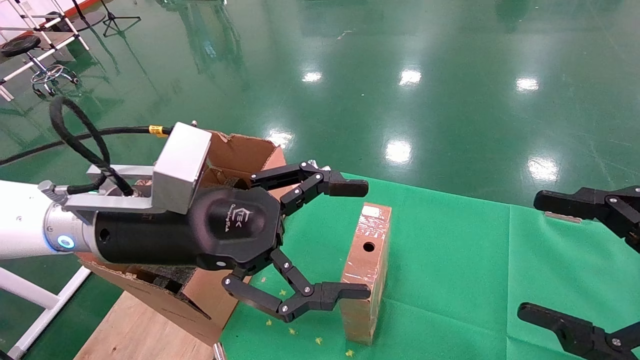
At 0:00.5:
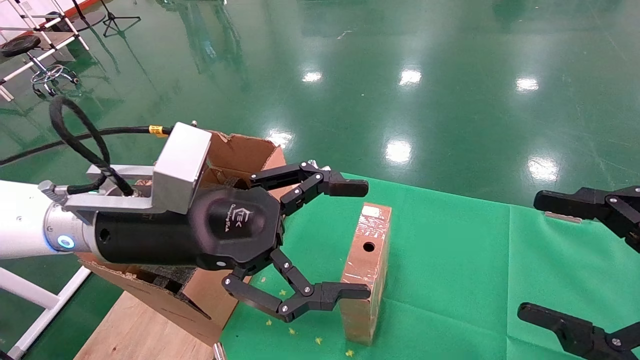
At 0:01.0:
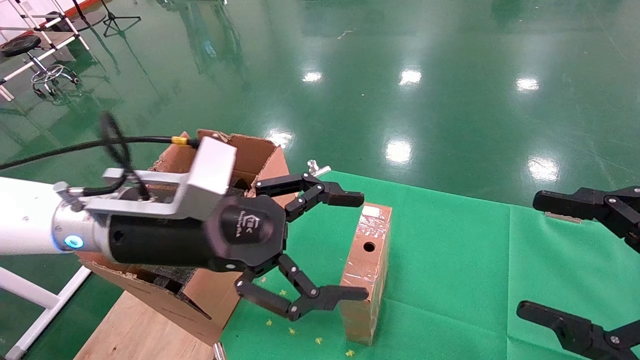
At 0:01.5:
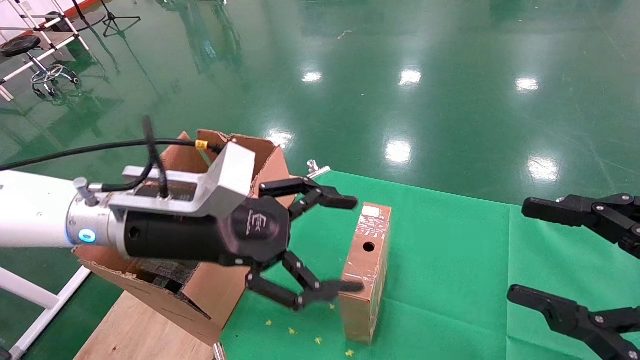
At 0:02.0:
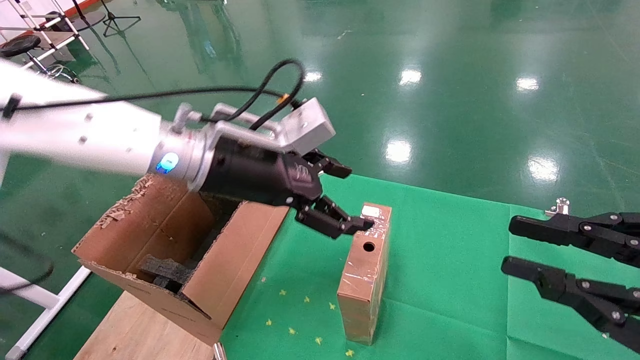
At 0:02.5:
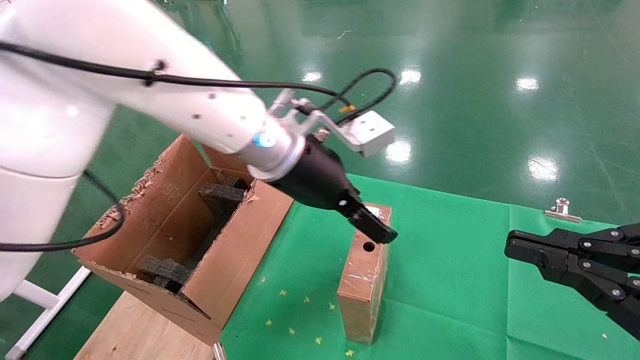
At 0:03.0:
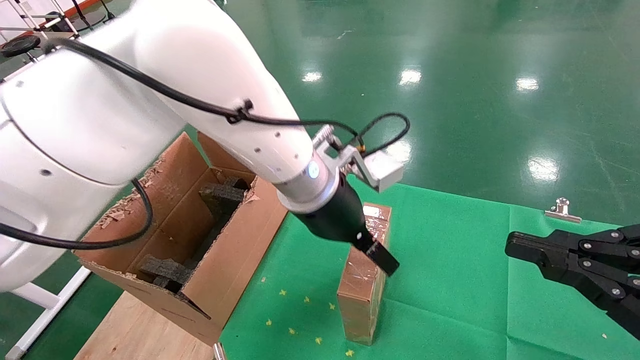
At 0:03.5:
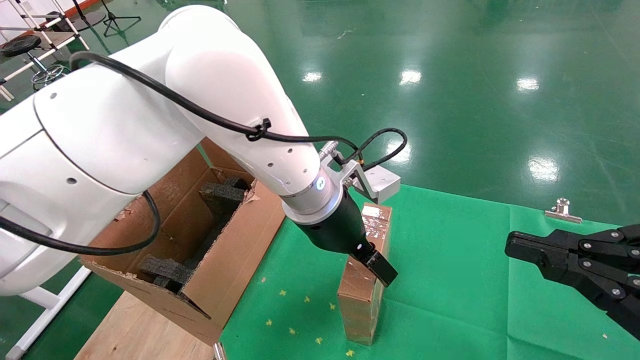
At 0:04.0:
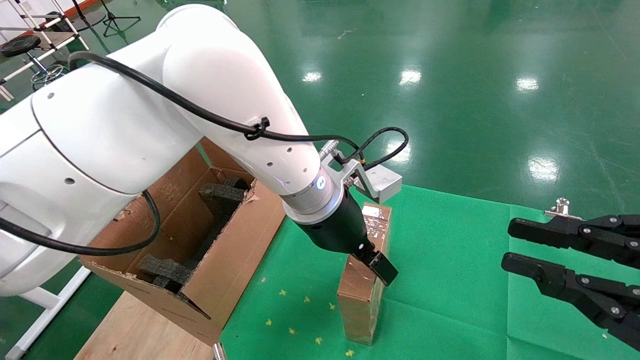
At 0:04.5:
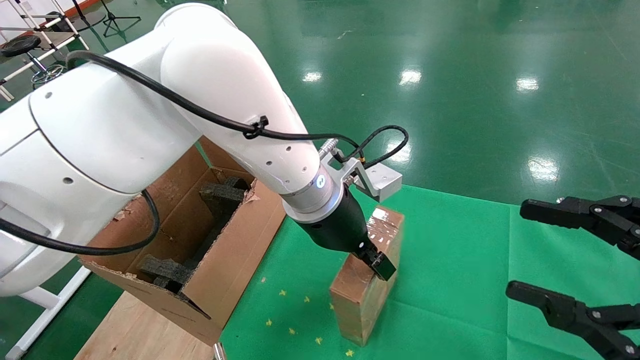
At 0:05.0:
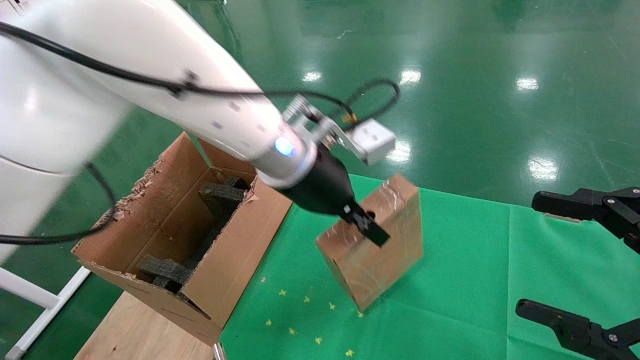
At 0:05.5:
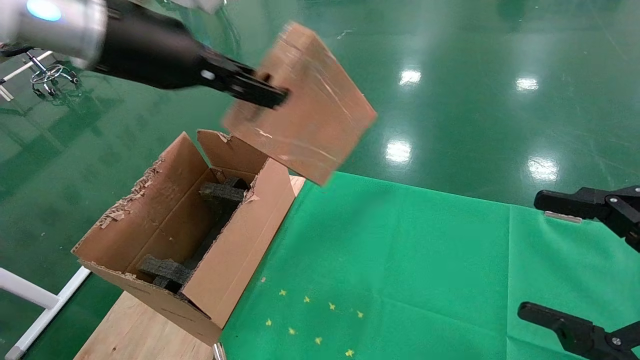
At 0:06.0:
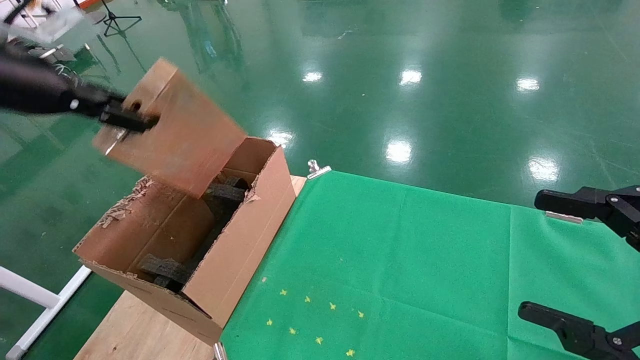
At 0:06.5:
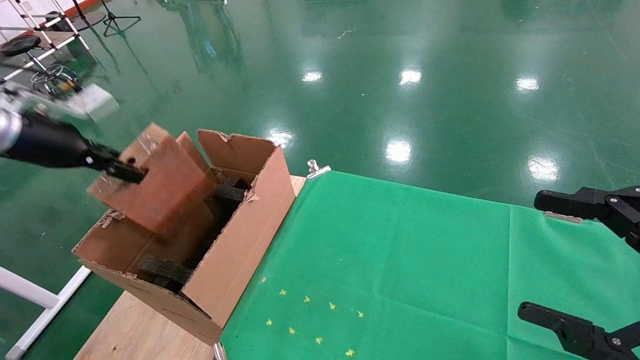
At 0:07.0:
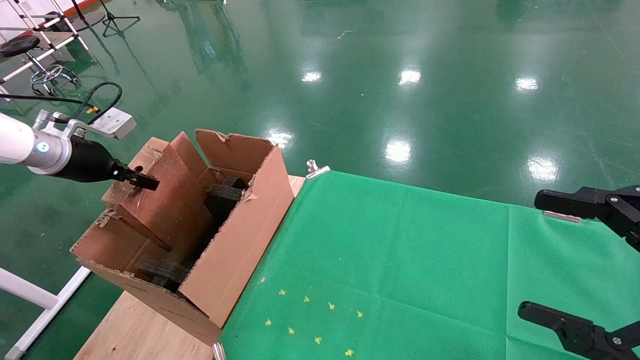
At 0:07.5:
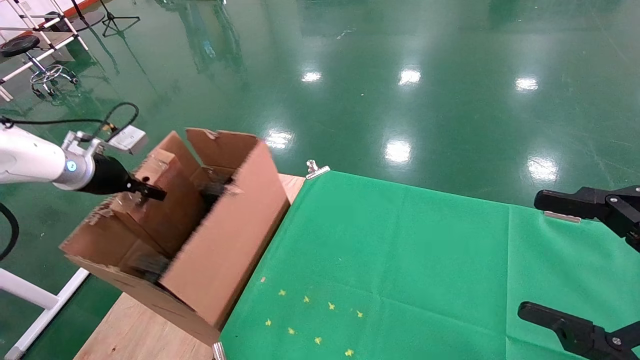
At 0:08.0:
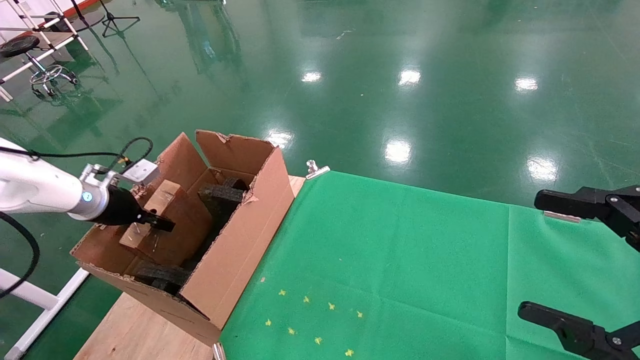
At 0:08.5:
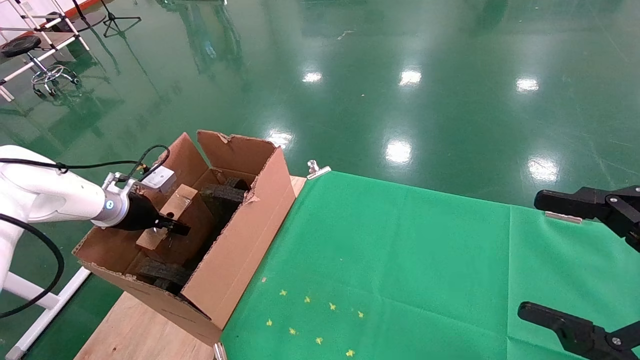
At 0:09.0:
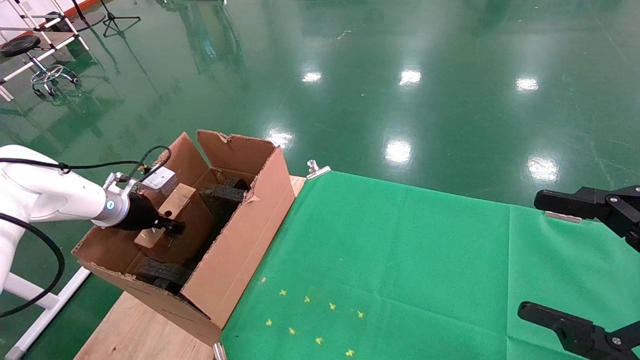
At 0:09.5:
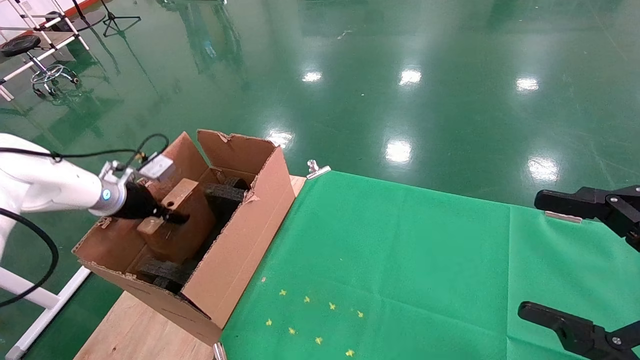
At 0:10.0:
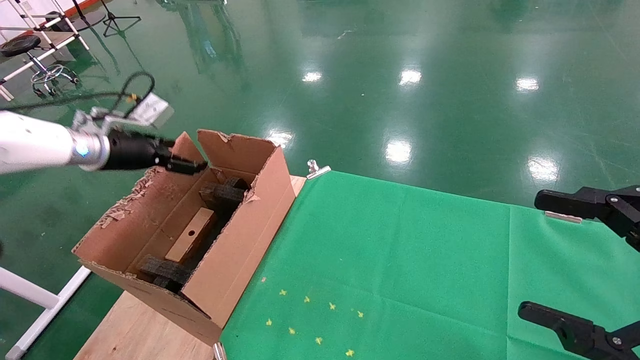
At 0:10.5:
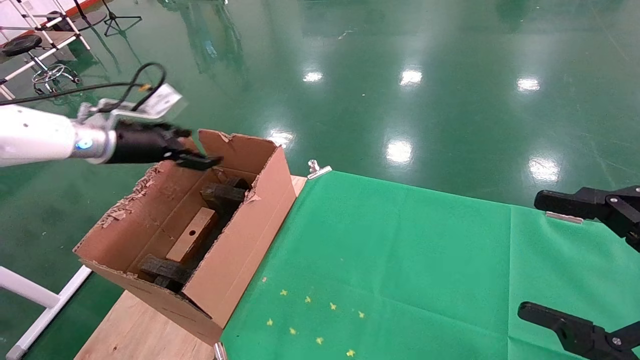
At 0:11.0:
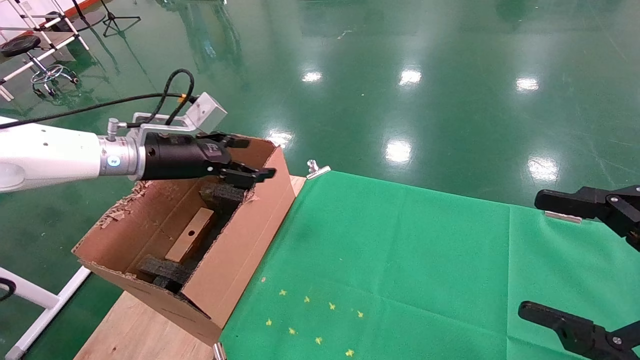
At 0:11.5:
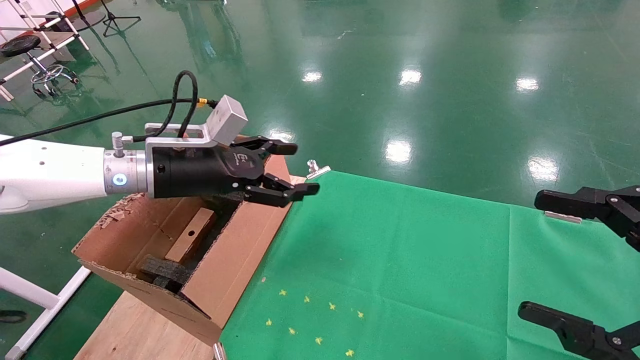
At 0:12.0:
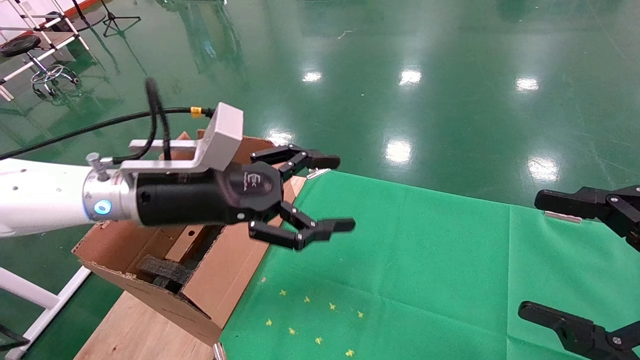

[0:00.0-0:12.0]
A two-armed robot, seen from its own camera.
Task of the whole recording: using a robotic arm to pick up a cardboard box and palace it the carton.
Step, 0:01.5 to 0:04.5: Pick up the mouse and the power cord paper box.
Step, 0:05.0 to 0:09.5: Place the mouse and the power cord paper box into the container.
0:00.0 to 0:02.0: The right gripper closes up. The left gripper shifts roughly 10 cm forward.
0:02.0 to 0:04.0: The left gripper goes approximately 10 cm to the right.
0:04.0 to 0:06.0: The left gripper travels to the left by roughly 35 cm, and closes its fingers. Meanwhile the right gripper opens.
0:06.0 to 0:08.0: The left gripper shifts some 25 cm downward and forward.
0:08.0 to 0:10.0: The left gripper heads upward, covering some 10 cm, and opens up.
0:10.0 to 0:12.0: The left gripper heads to the right and backward, covering roughly 25 cm.

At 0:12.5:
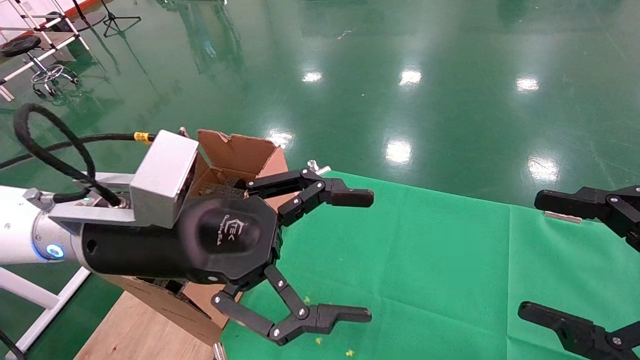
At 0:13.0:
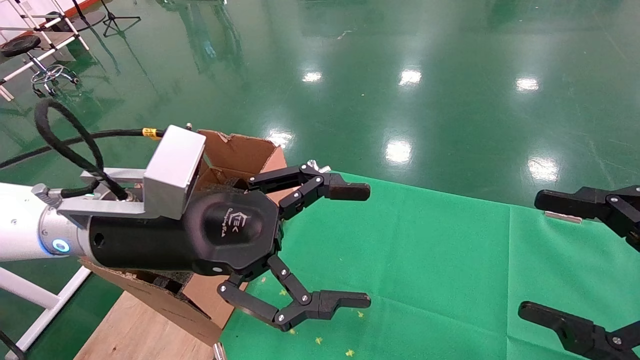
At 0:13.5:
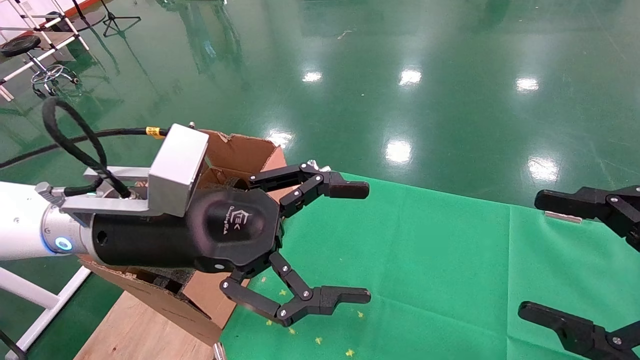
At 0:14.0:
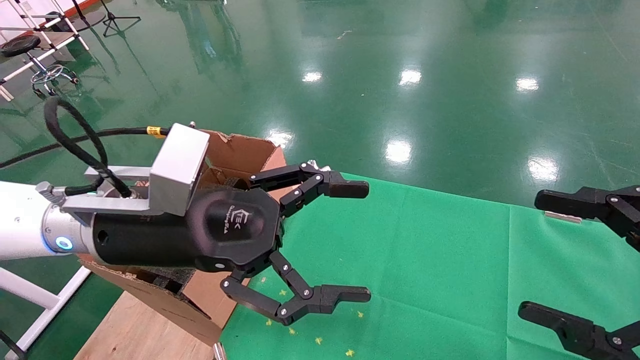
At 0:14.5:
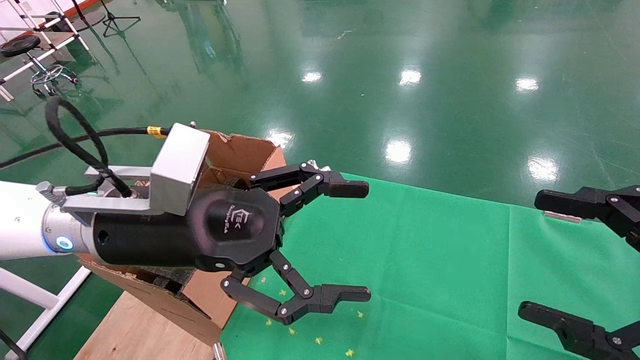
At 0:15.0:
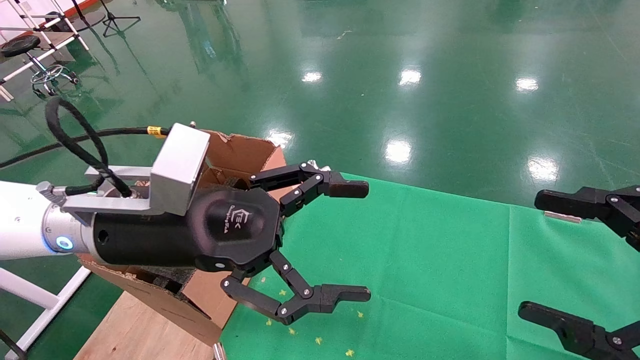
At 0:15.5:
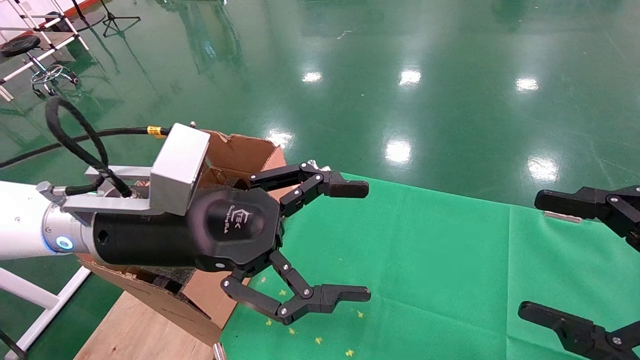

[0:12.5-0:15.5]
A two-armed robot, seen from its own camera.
Task of the whole recording: using a robotic arm to pick up a cardboard box and palace it the carton.
0:12.5 to 0:15.5: Both grippers stay put.

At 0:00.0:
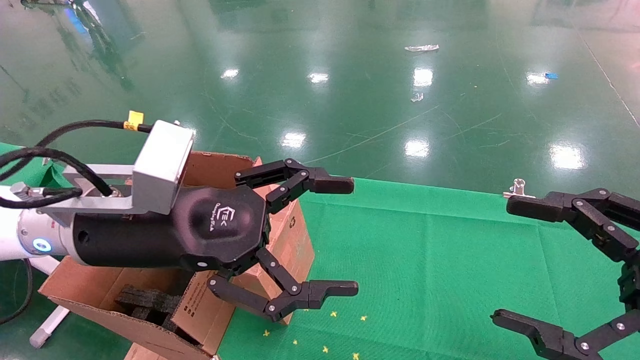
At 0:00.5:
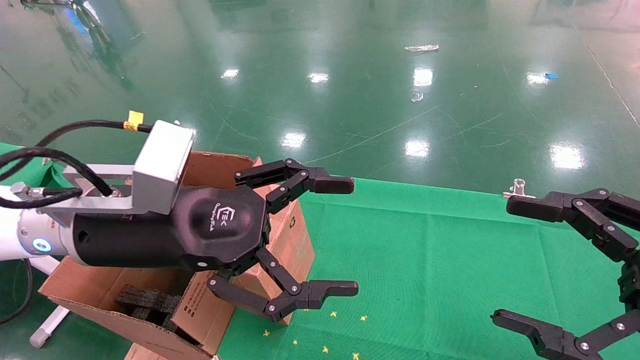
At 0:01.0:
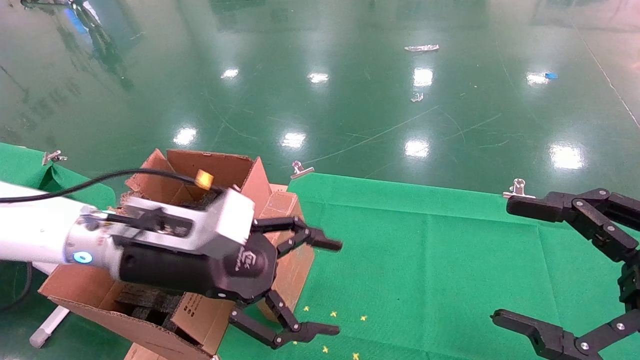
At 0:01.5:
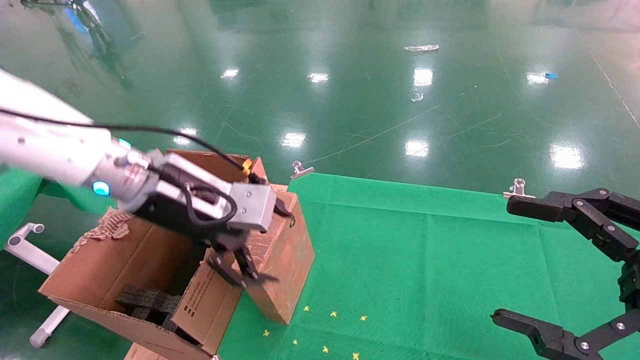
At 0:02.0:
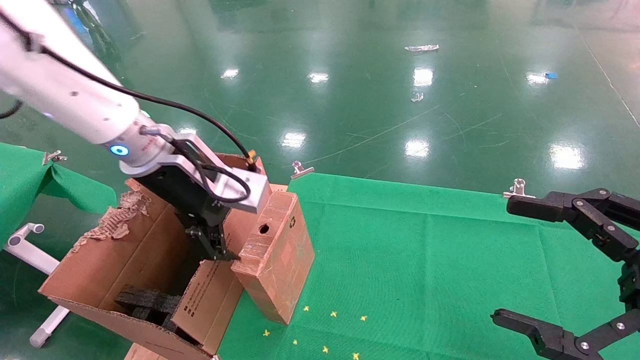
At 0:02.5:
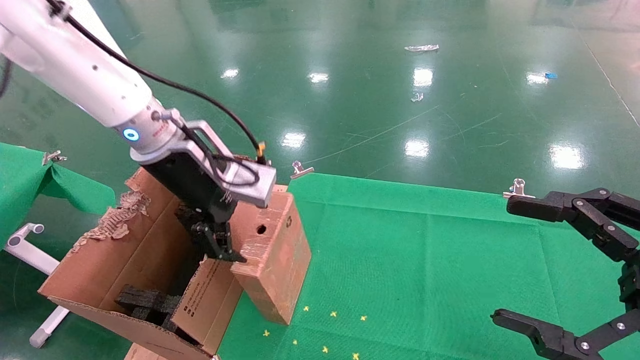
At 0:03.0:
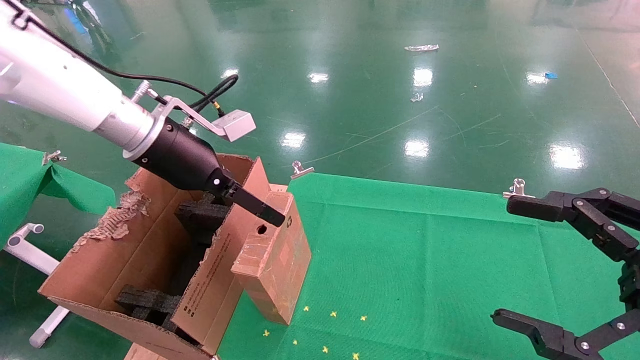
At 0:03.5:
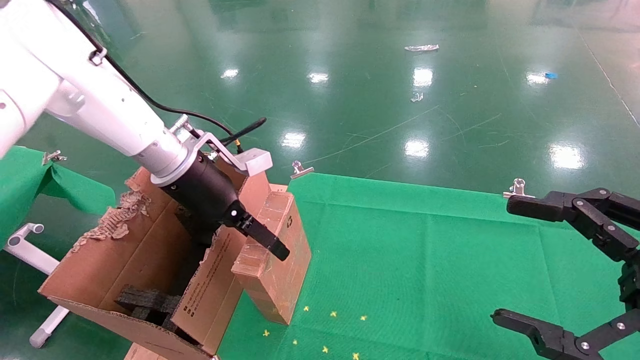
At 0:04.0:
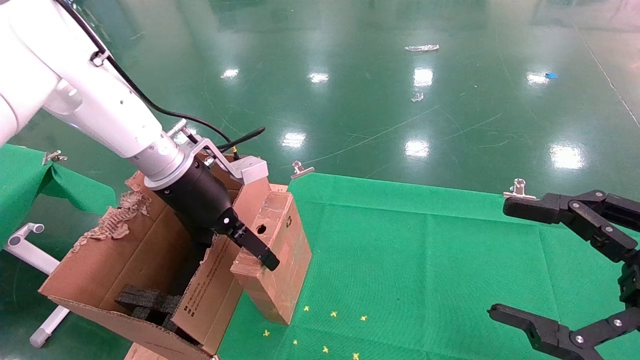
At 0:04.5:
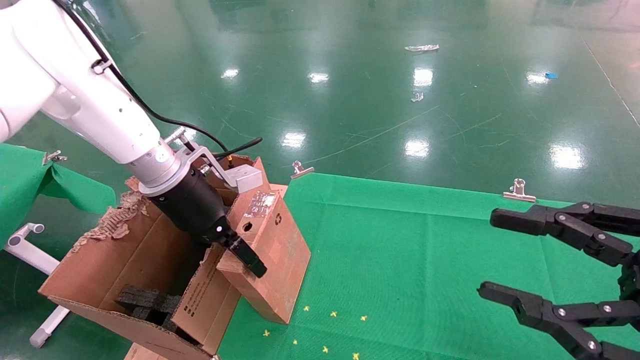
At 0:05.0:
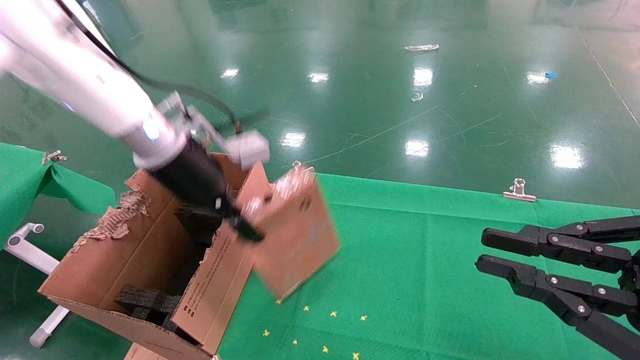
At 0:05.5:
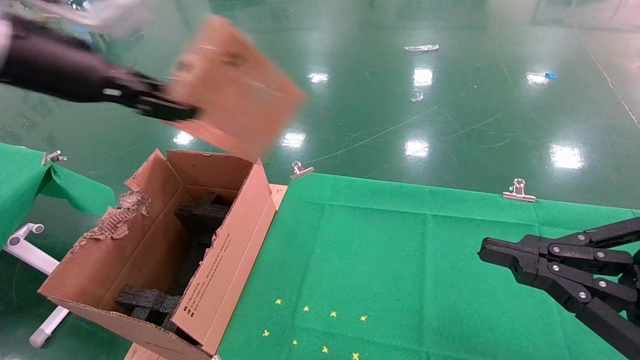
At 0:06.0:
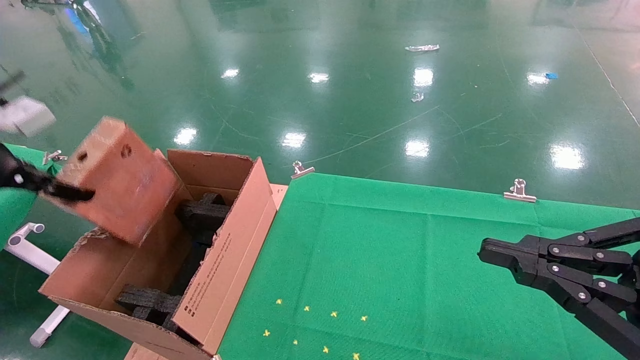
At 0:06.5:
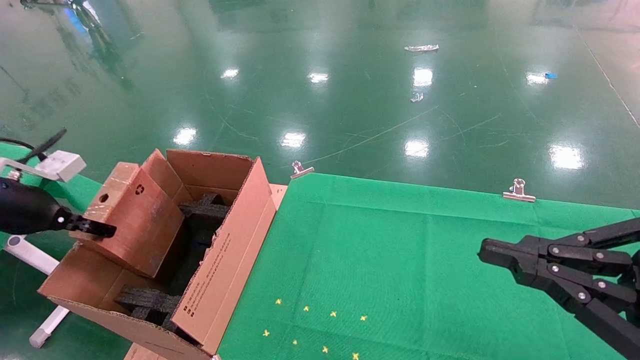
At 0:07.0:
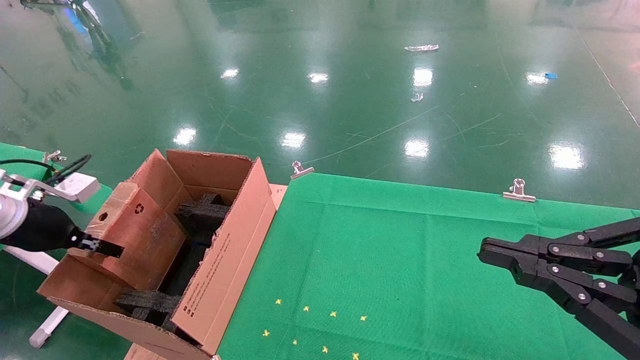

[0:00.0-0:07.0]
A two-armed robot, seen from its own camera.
Task of the whole recording: using a robotic arm to pick up a cardboard box and palace it the carton.
Step, 0:01.0 to 0:04.5: Pick up the mouse and the power cord paper box.
0:00.0 to 0:02.0: The left gripper shifts approximately 10 cm forward.
0:02.0 to 0:03.5: The left gripper shifts by some 5 cm.
0:03.5 to 0:05.0: The left gripper shifts roughly 5 cm upward, and closes its fingers; the right gripper closes up.
0:05.0 to 0:07.0: The left gripper is displaced to the left and downward by about 30 cm.
